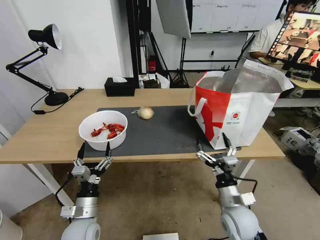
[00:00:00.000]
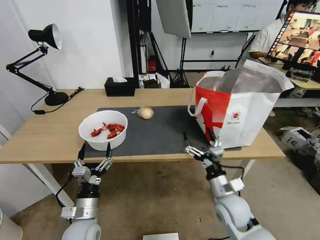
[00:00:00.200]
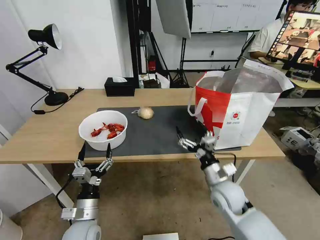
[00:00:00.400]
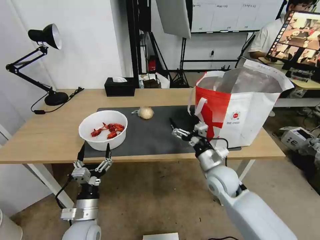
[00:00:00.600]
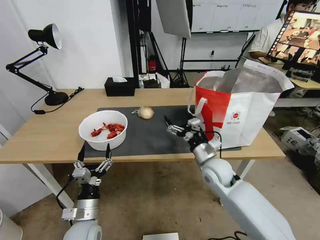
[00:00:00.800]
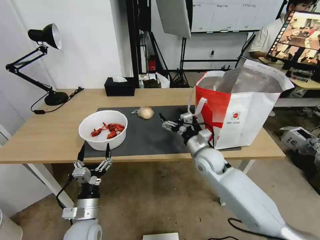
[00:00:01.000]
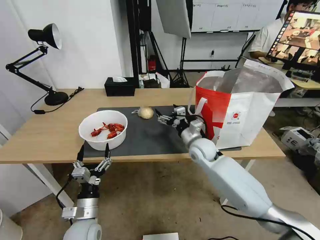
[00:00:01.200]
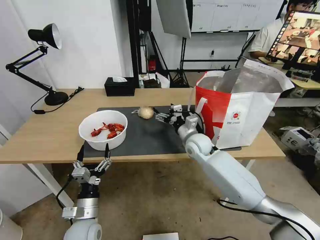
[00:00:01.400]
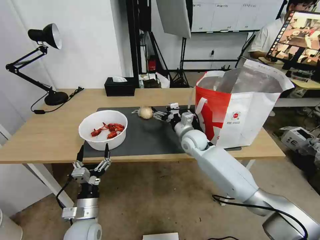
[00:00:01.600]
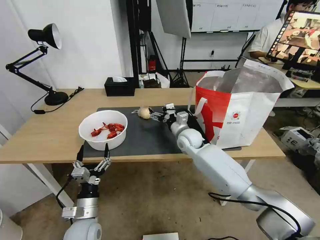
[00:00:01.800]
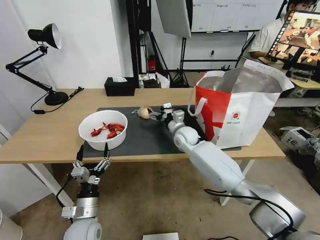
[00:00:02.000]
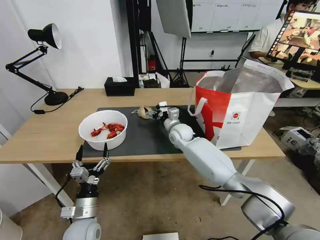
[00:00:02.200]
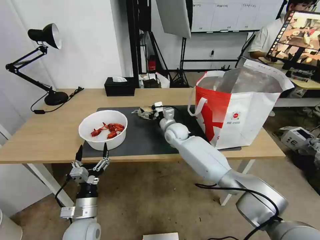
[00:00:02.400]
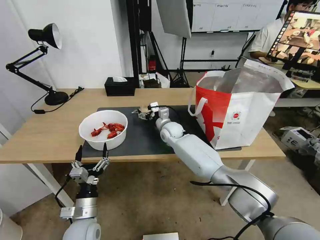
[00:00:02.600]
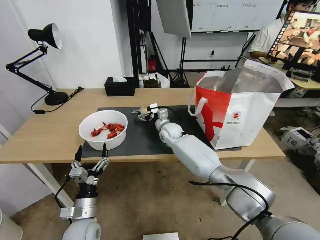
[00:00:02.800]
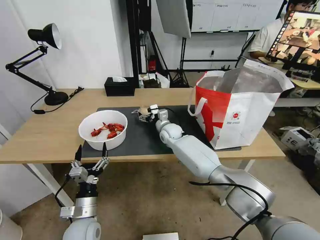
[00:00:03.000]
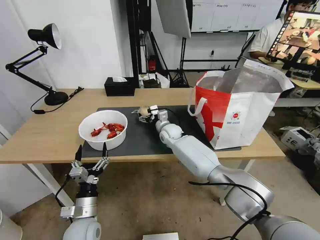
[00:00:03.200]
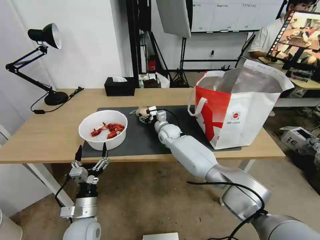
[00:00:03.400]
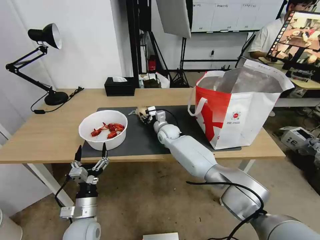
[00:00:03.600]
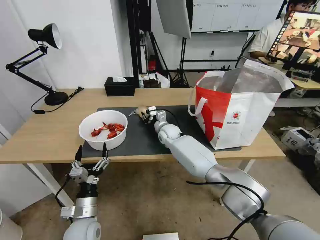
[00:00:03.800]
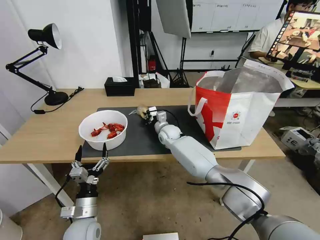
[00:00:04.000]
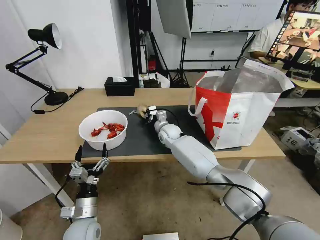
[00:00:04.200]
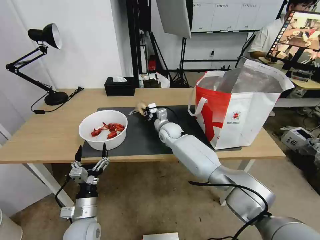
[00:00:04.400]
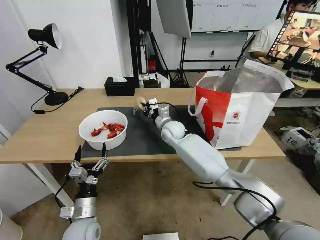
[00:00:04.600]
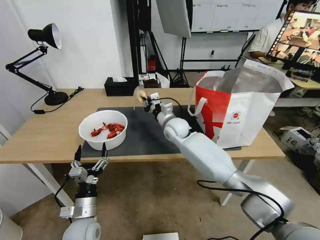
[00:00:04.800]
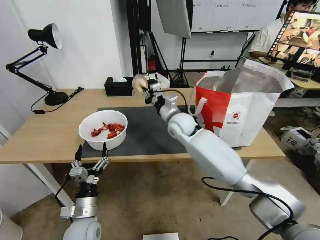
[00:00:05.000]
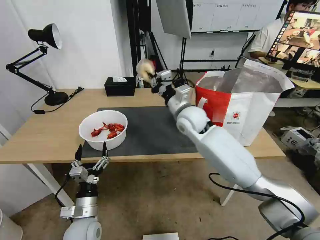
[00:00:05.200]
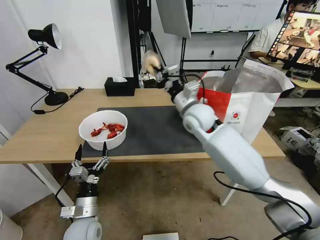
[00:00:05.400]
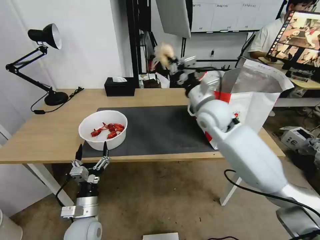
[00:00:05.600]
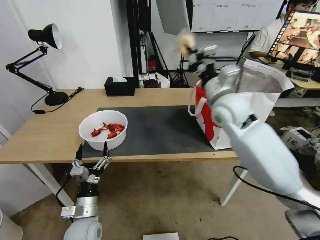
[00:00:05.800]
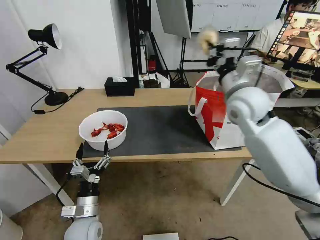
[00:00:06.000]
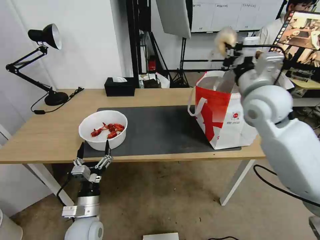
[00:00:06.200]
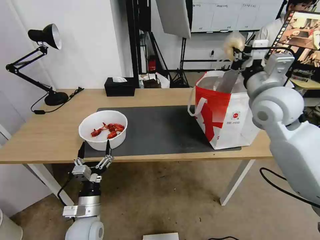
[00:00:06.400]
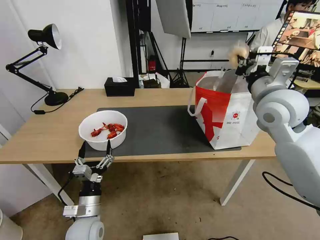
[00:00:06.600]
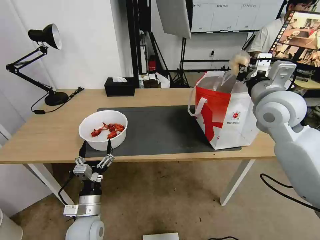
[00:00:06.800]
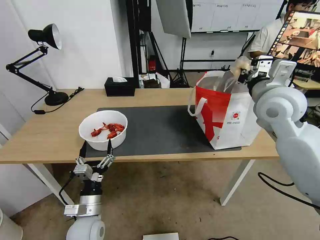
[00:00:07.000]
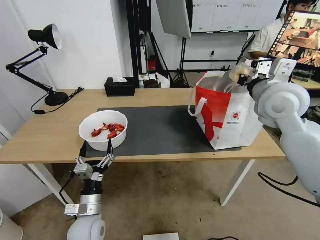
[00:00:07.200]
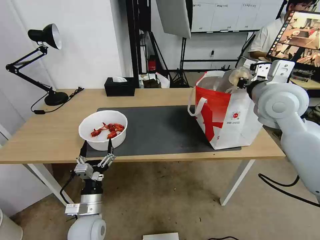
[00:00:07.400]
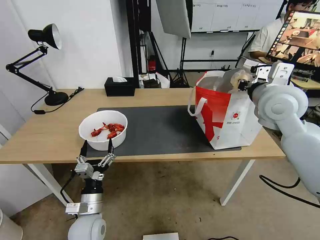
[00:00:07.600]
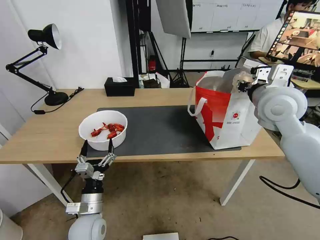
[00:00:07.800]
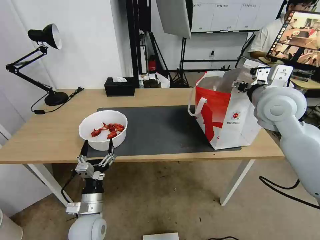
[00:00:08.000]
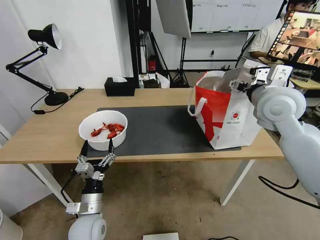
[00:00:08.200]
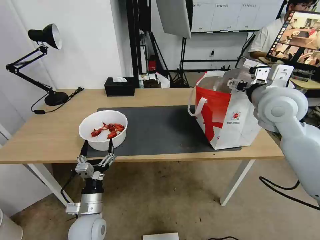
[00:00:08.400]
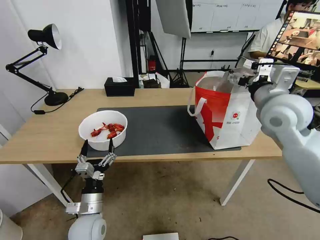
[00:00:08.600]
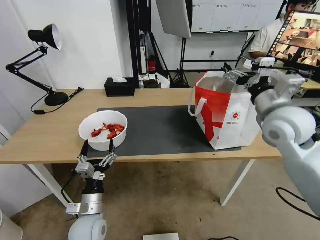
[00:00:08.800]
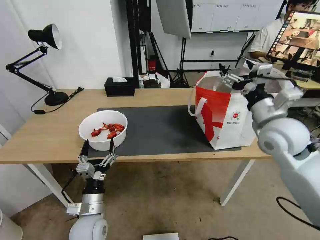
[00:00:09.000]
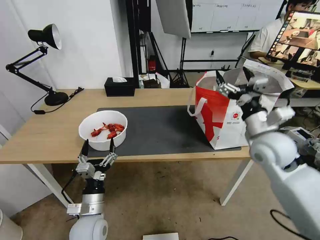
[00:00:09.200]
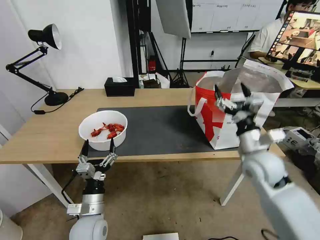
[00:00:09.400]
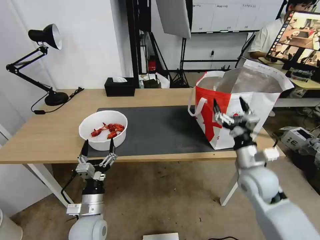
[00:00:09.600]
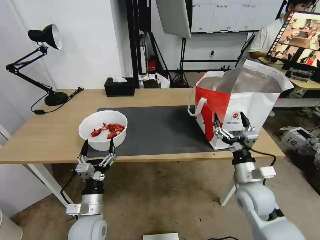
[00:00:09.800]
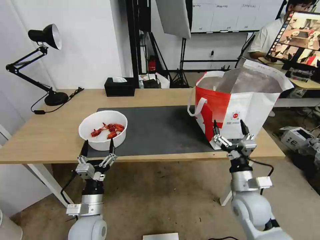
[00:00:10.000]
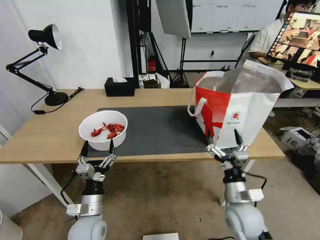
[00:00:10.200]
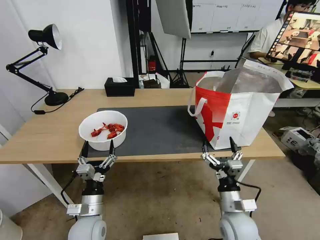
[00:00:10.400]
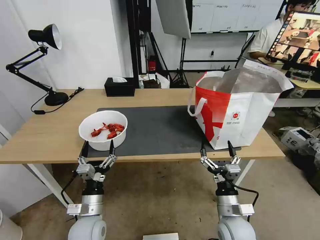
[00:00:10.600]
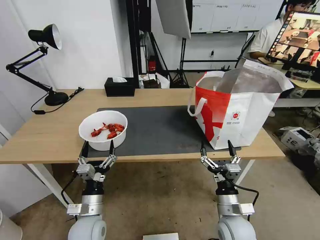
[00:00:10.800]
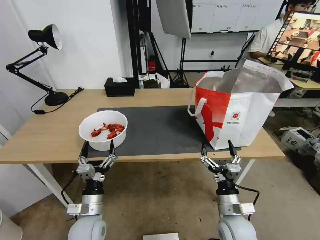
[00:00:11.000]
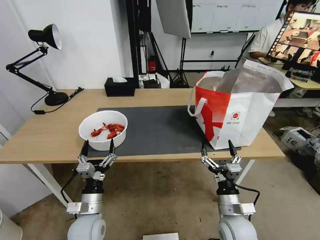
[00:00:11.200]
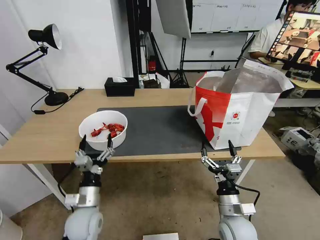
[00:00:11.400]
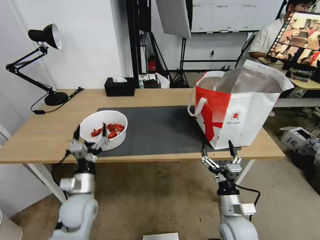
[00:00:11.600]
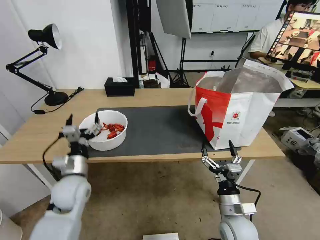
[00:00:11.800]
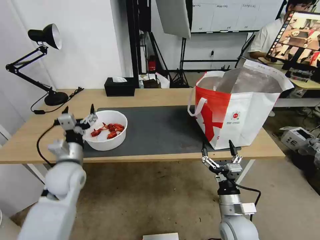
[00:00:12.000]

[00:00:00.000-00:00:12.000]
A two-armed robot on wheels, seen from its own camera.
Task of the whole recording: Pick up the trash from the table and place it into the takeout bag.
00:00:00.000 to 00:00:01.600: The right gripper goes some 25 cm forward.
00:00:01.600 to 00:00:03.000: The right gripper moves to the left and forward, approximately 10 cm.
00:00:03.000 to 00:00:04.400: The right gripper closes up.
00:00:04.400 to 00:00:06.000: The right gripper goes roughly 35 cm upward, to the right and backward.
00:00:06.000 to 00:00:07.600: The right gripper is displaced to the right by approximately 5 cm.
00:00:07.600 to 00:00:09.000: The right gripper shifts some 5 cm downward, and opens up.
00:00:09.000 to 00:00:10.400: The right gripper shifts some 30 cm downward and backward.
00:00:10.400 to 00:00:12.000: The left gripper shifts approximately 15 cm upward, forward and to the left.

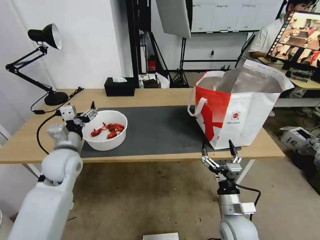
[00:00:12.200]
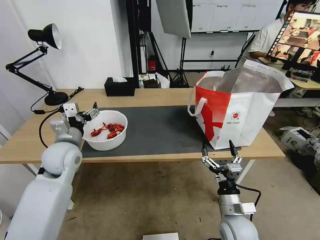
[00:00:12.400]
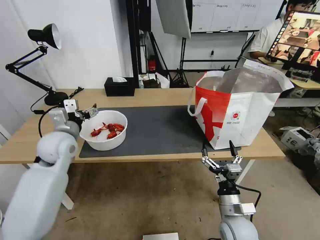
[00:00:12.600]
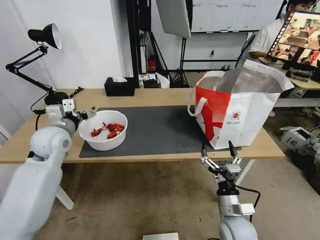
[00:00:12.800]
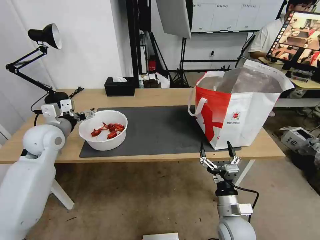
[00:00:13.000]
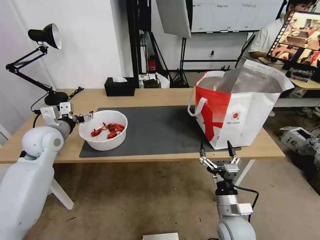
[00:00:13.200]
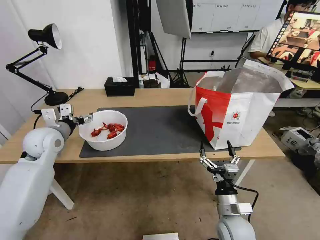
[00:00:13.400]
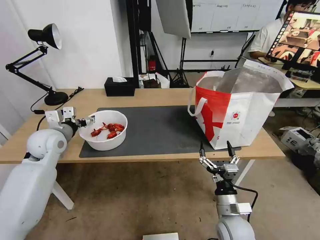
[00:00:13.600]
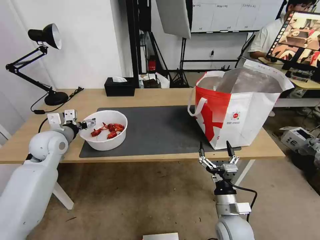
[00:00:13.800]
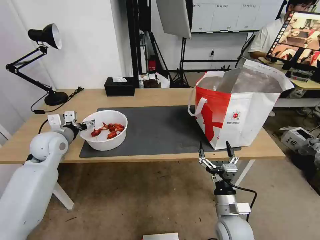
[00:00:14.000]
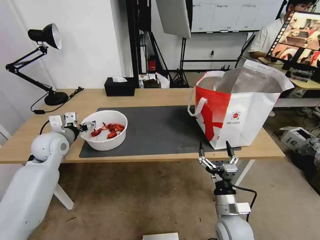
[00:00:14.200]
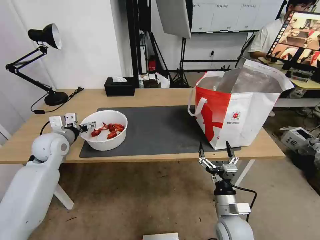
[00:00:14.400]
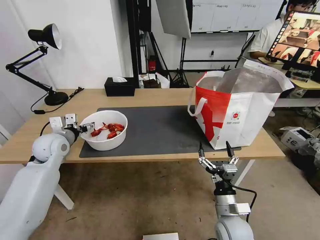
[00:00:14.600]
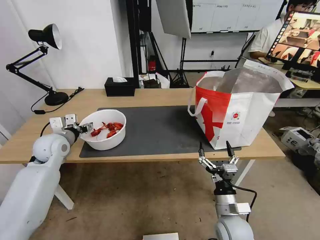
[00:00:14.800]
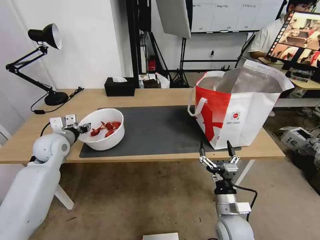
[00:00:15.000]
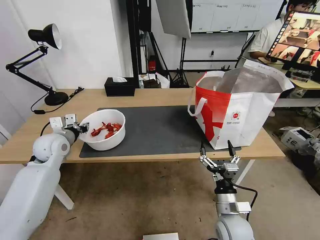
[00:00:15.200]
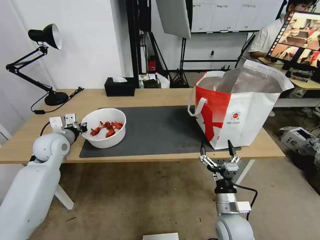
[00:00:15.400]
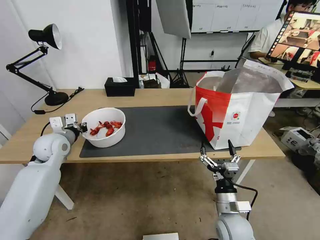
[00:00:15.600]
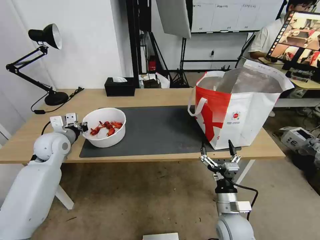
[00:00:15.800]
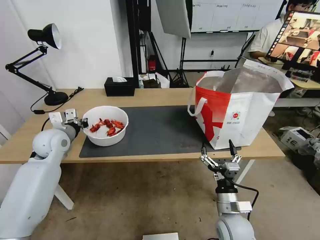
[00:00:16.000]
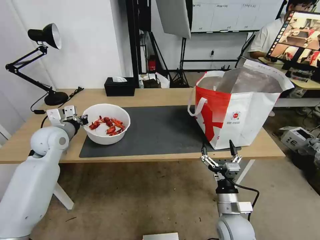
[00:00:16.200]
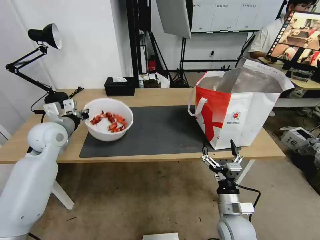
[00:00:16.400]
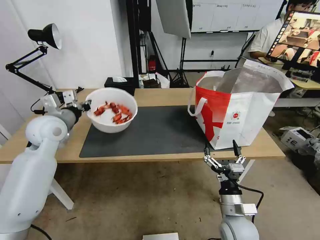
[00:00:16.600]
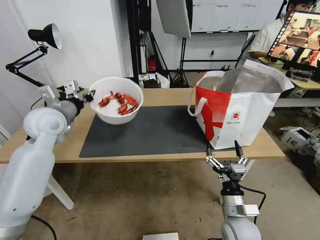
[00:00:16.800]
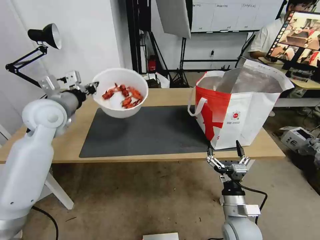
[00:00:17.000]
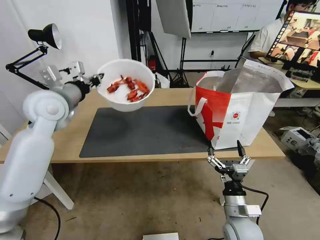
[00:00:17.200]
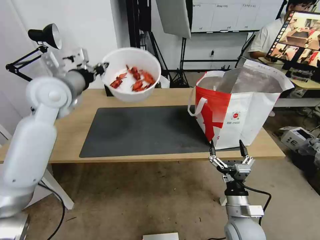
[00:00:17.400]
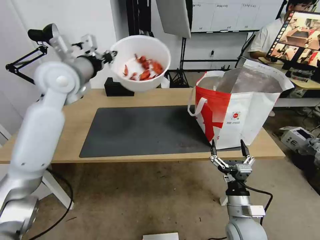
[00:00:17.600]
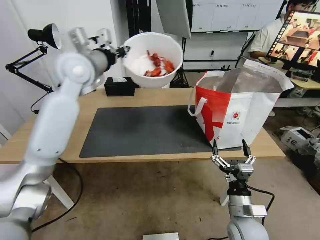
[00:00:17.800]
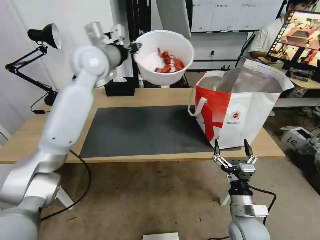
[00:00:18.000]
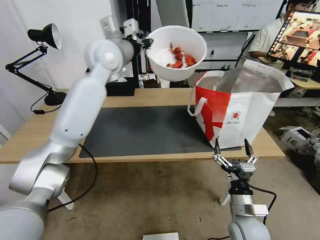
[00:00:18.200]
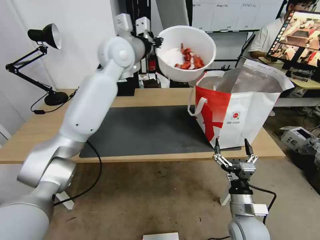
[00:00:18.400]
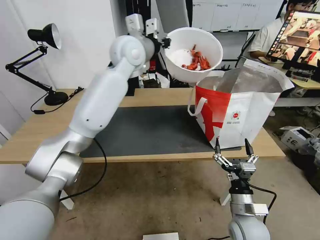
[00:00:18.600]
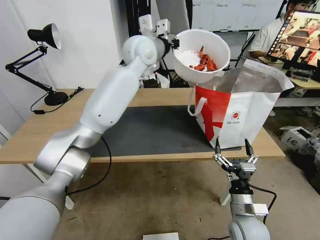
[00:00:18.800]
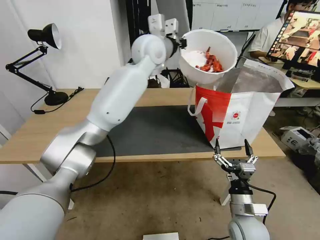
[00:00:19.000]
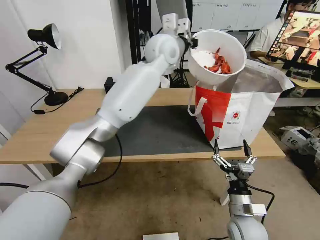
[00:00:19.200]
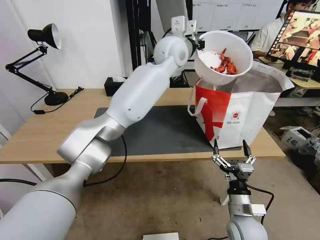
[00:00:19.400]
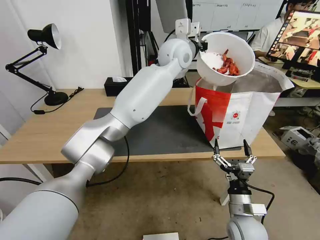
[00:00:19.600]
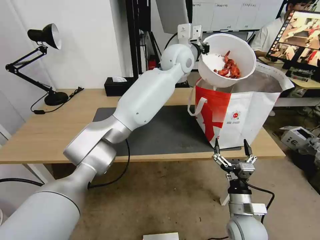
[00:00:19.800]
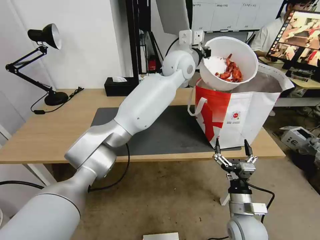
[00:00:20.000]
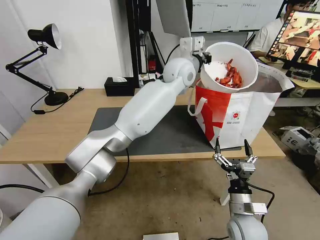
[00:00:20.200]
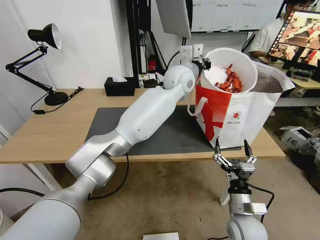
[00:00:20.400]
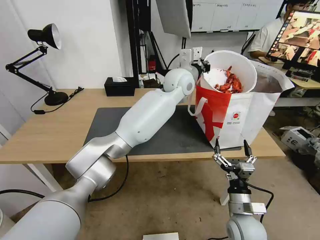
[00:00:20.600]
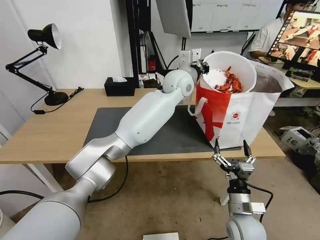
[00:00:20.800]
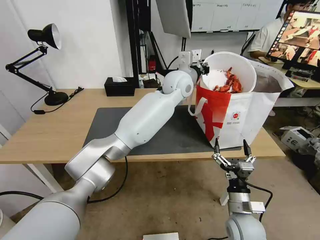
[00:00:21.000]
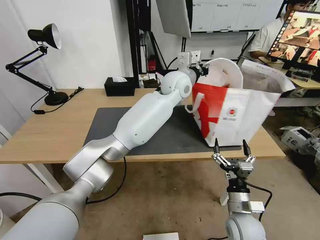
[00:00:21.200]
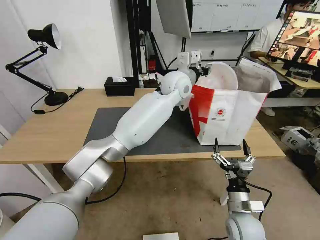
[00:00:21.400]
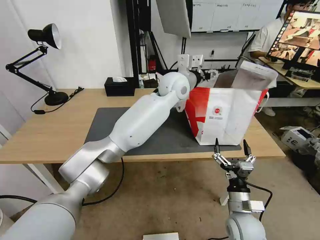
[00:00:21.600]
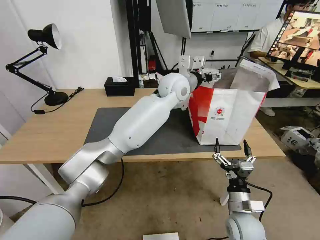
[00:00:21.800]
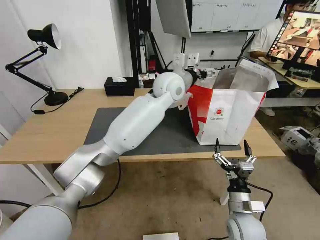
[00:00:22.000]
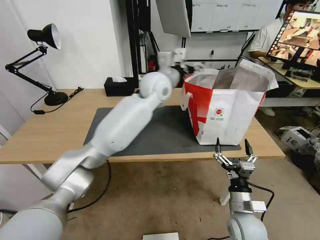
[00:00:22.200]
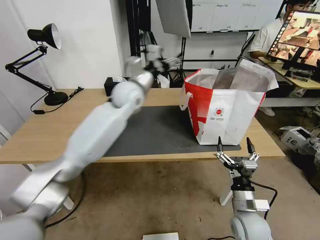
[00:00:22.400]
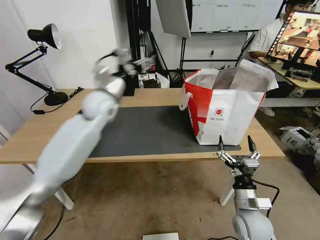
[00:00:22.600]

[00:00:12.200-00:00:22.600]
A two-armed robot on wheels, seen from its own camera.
Task of the whole recording: Pick up the trash from the table and place it into the takeout bag.
00:00:12.200 to 00:00:13.600: The left gripper shifts roughly 10 cm to the left and forward.
00:00:13.600 to 00:00:15.200: The left gripper closes up.
00:00:15.200 to 00:00:16.600: The left gripper travels upward by roughly 10 cm.
00:00:16.600 to 00:00:18.200: The left gripper goes approximately 25 cm to the right, upward and forward.
00:00:18.200 to 00:00:19.600: The left gripper heads to the right, covering roughly 20 cm.
00:00:19.600 to 00:00:21.200: The left gripper is displaced downward by about 10 cm.
00:00:21.200 to 00:00:22.600: The left gripper shifts about 25 cm to the left, and opens up.
